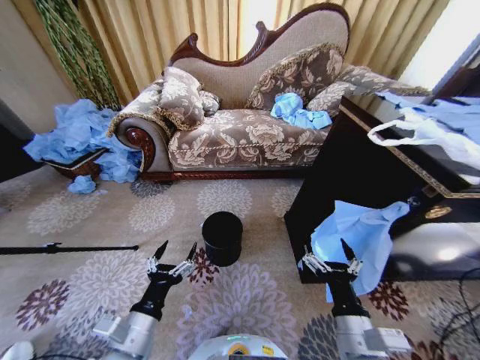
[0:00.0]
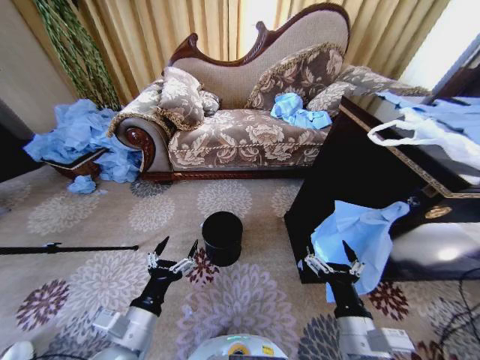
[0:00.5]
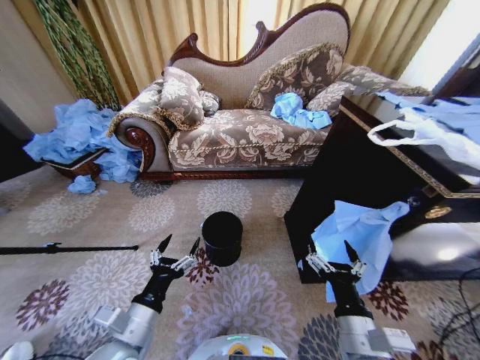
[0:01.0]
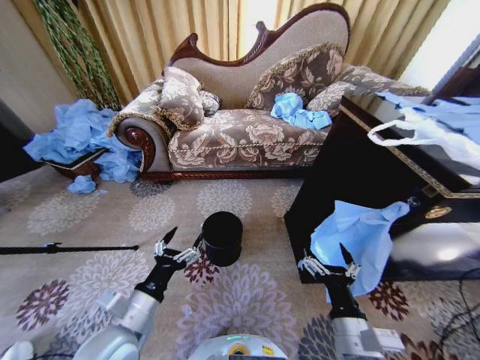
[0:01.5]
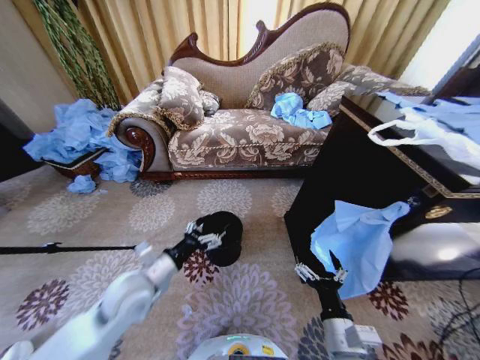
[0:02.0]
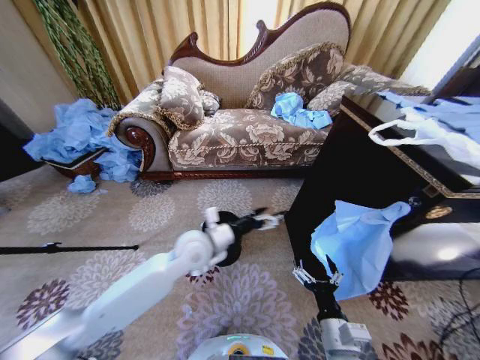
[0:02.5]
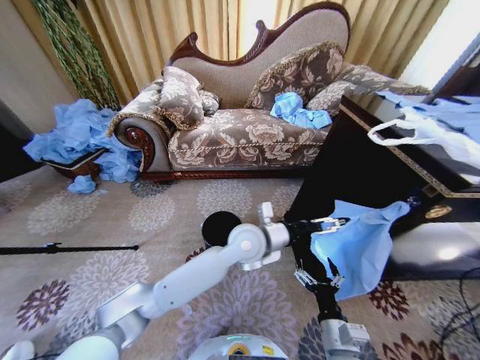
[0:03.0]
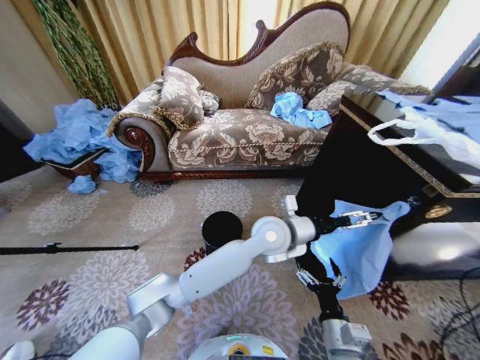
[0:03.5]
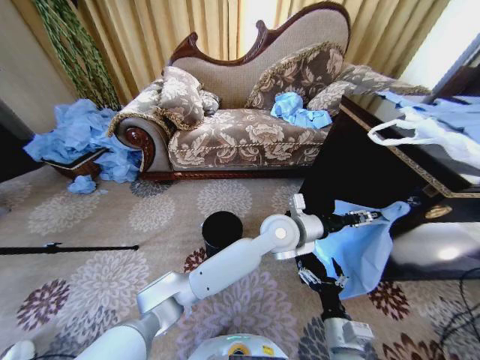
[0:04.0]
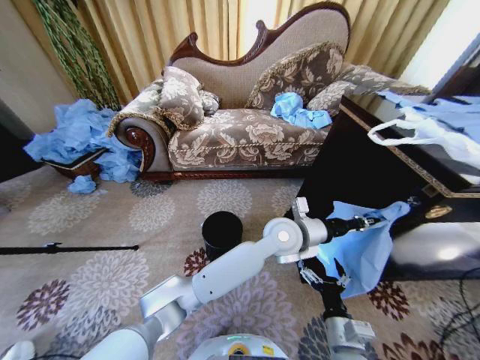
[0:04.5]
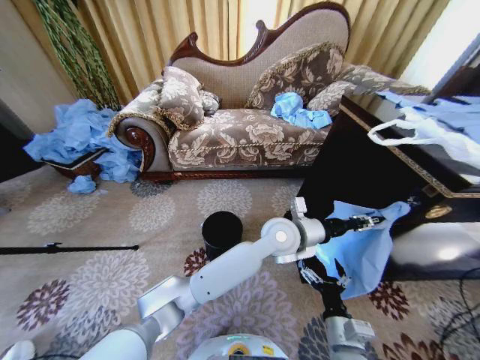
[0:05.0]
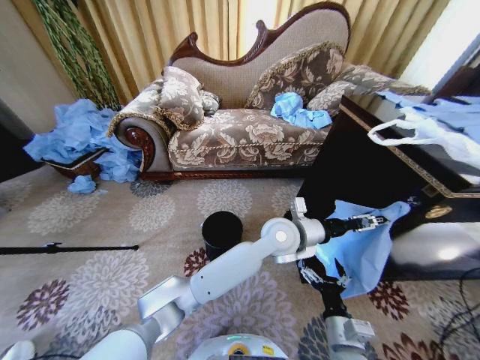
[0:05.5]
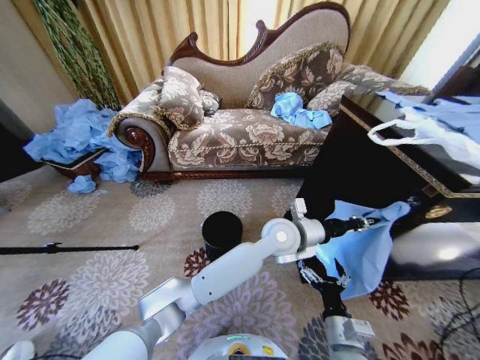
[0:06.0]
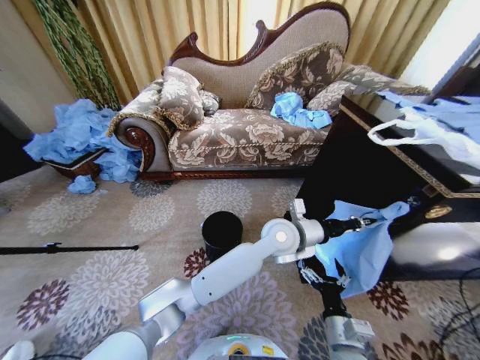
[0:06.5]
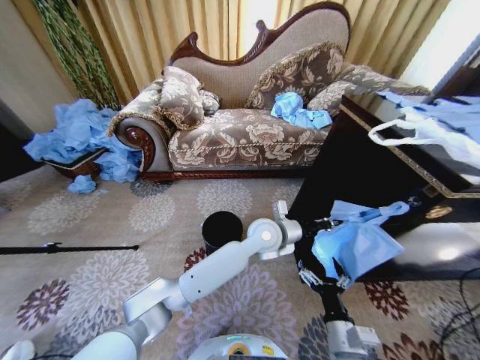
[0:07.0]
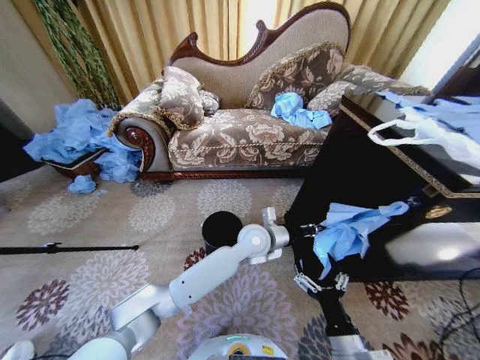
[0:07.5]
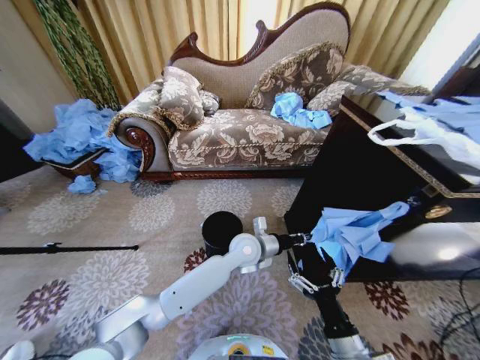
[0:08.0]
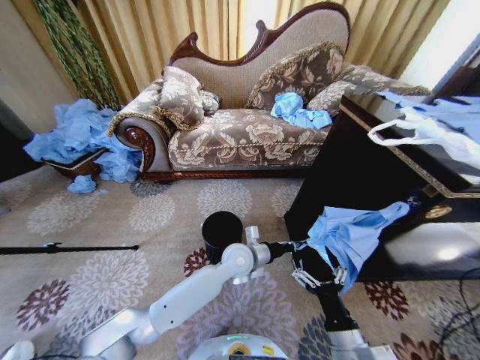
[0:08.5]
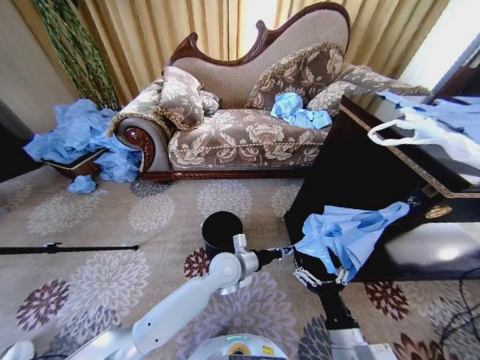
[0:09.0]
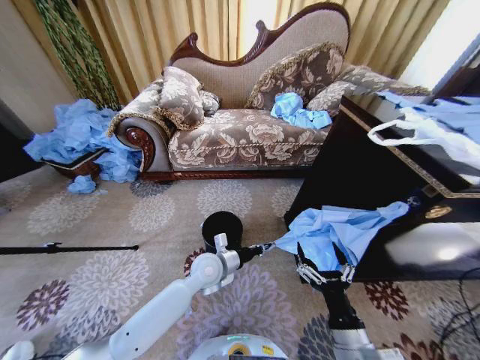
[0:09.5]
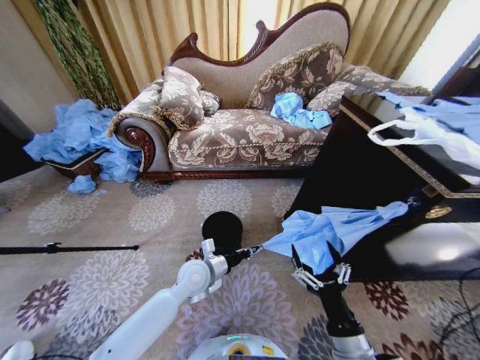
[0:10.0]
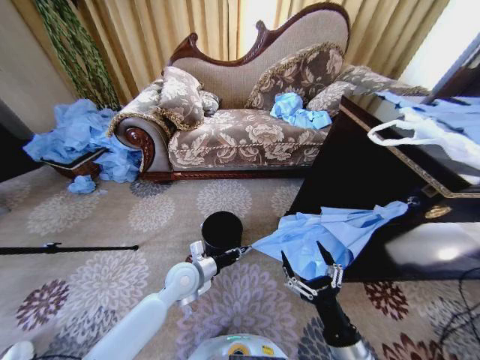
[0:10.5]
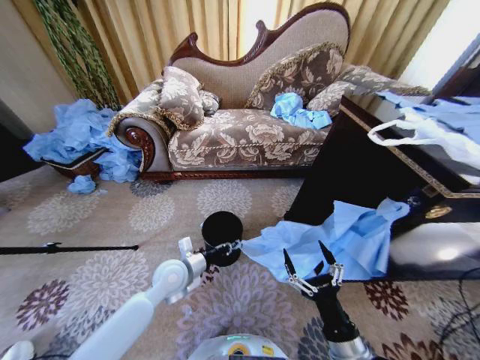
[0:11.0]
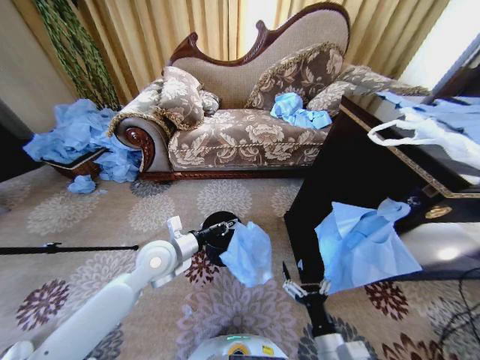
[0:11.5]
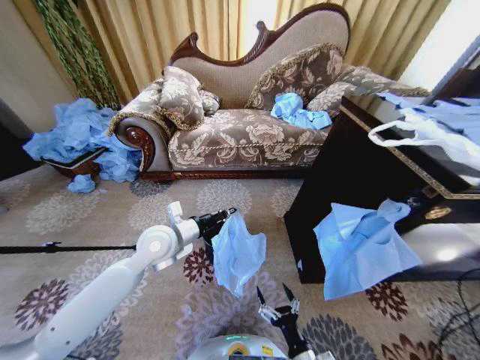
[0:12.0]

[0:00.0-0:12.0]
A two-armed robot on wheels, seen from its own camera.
Task of the whole recording: Place a garbage bag over the trash bin.
0:02.0 to 0:04.0: The left gripper moves to the right and forward, about 35 cm, and closes its fingers.
0:04.0 to 0:06.0: The left gripper closes up.
0:06.0 to 0:08.0: The left gripper heads downward and to the left, covering about 10 cm, while the right gripper changes place by roughly 5 cm.
0:08.0 to 0:10.0: The left gripper travels to the left and backward by roughly 15 cm.
0:10.0 to 0:12.0: The left gripper travels upward and to the left by some 15 cm, while the right gripper is displaced downward by roughly 10 cm.

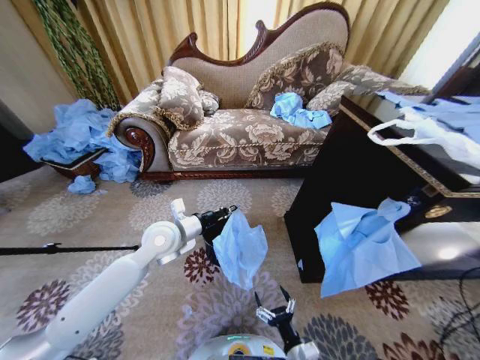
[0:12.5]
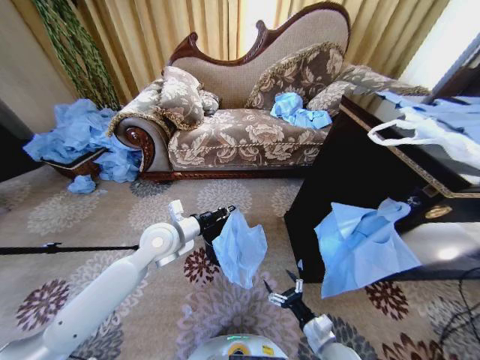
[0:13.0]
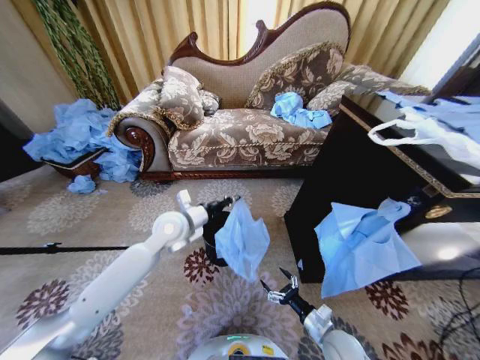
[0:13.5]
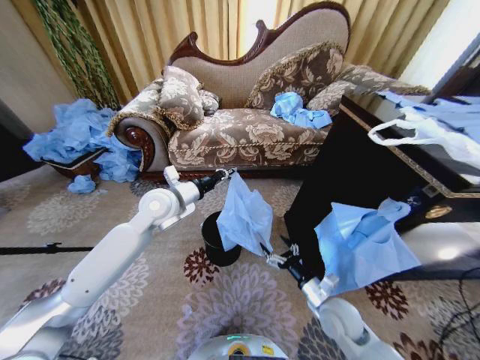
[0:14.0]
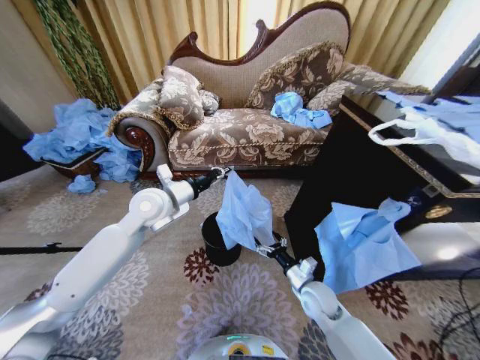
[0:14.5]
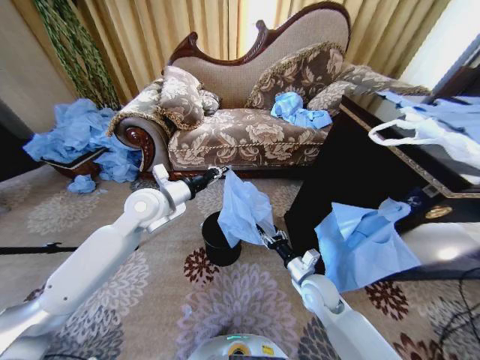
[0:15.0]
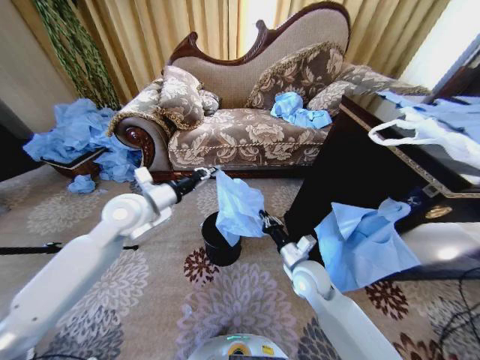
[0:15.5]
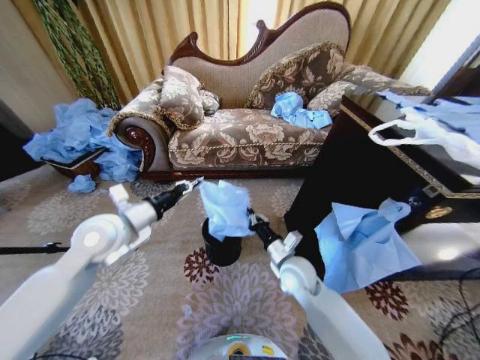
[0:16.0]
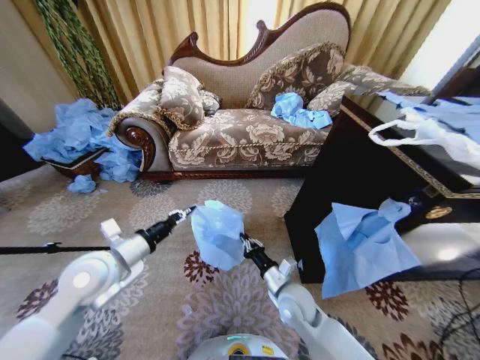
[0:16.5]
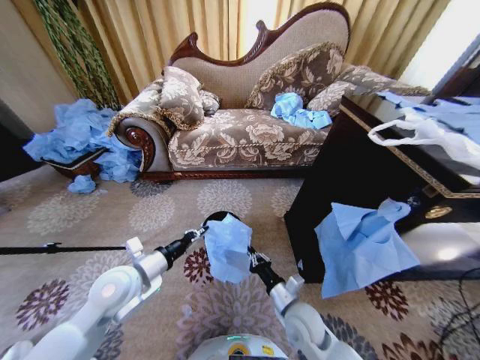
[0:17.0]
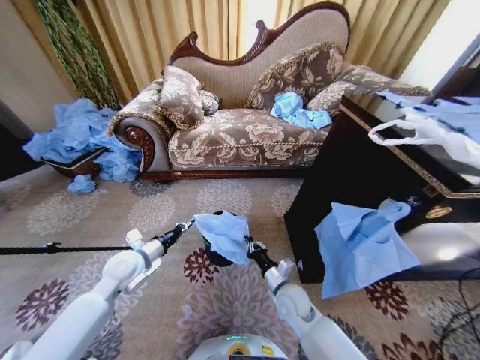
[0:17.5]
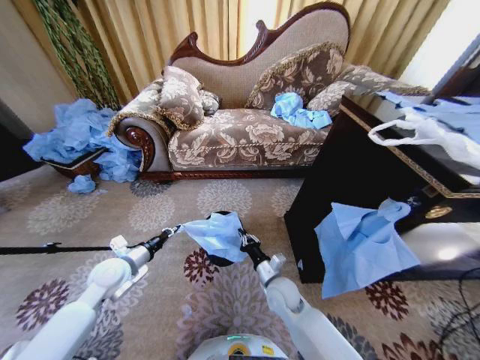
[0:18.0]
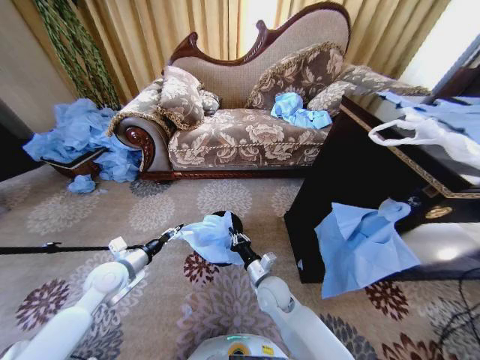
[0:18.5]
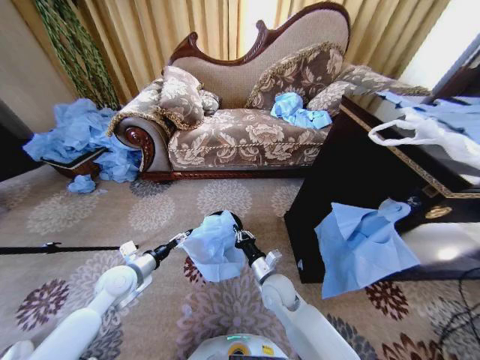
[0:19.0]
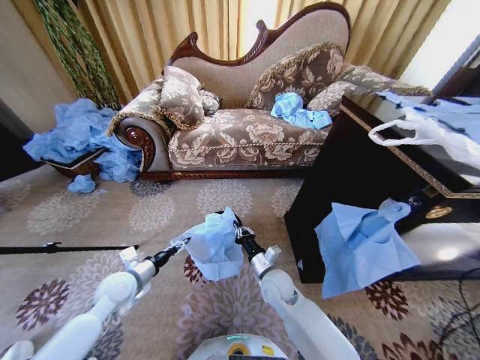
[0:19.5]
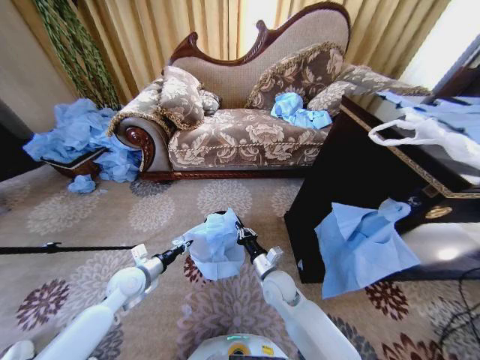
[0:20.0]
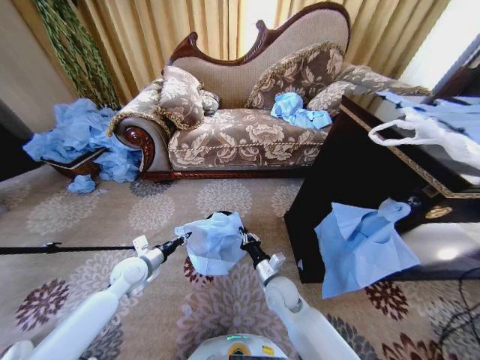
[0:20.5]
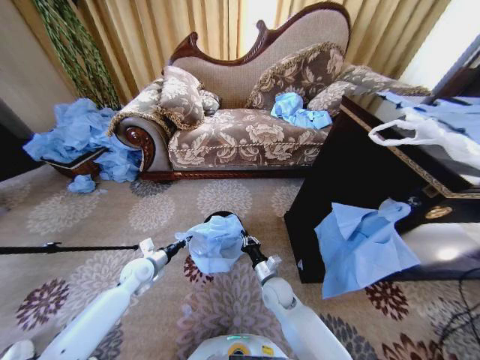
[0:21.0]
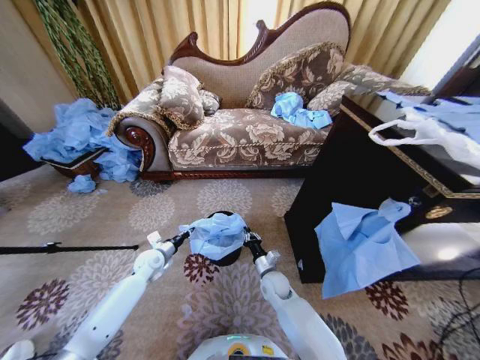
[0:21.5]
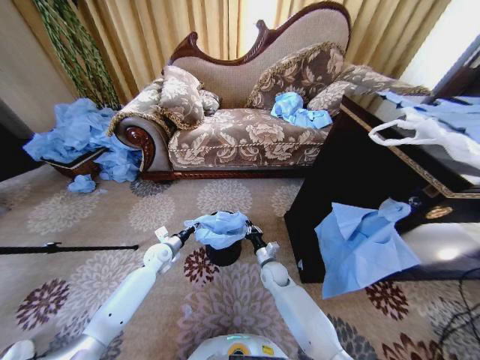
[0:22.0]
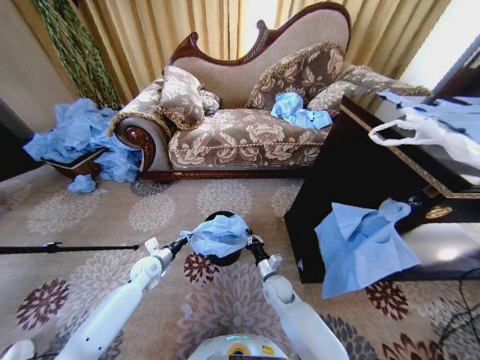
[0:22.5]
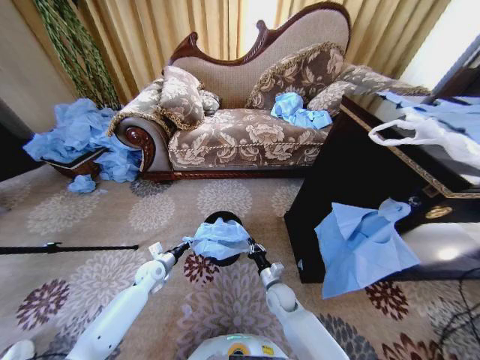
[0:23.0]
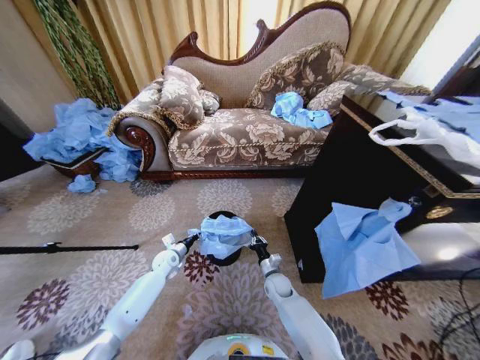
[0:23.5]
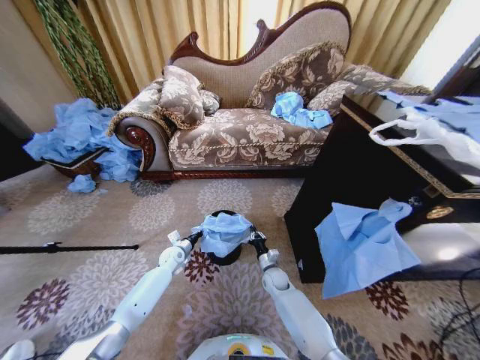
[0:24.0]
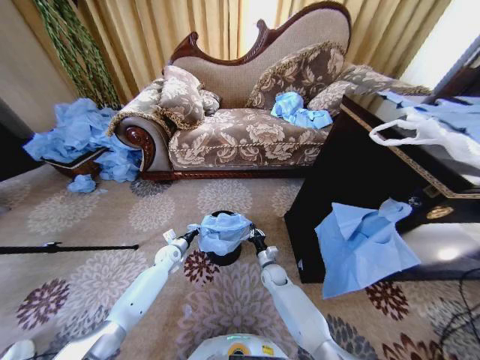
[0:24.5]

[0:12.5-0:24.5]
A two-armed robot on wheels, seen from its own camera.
Task of the whole recording: Place a garbage bag over the trash bin.
0:12.5 to 0:14.5: The right gripper moves forward, roughly 20 cm. The left gripper heads upward, covering approximately 10 cm.
0:14.5 to 0:16.5: The left gripper heads backward, to the left and downward, covering some 15 cm; the right gripper heads to the left, covering some 10 cm, and closes its fingers.
0:16.5 to 0:18.5: The right gripper is displaced to the left by approximately 5 cm. Meanwhile the left gripper shifts about 10 cm downward and to the left, and opens.
0:18.5 to 0:20.5: The left gripper goes about 5 cm downward, and closes.
0:20.5 to 0:22.5: Both grippers move downward, roughly 5 cm.
0:22.5 to 0:24.5: The left gripper moves forward, roughly 10 cm. Meanwhile the right gripper goes roughly 10 cm forward and downward.

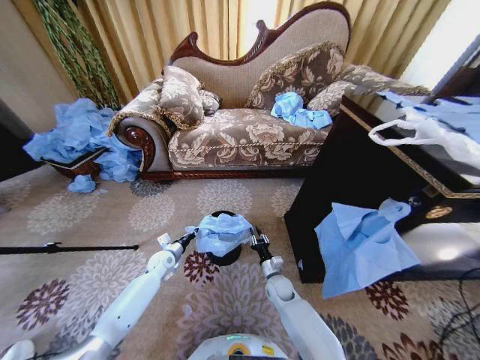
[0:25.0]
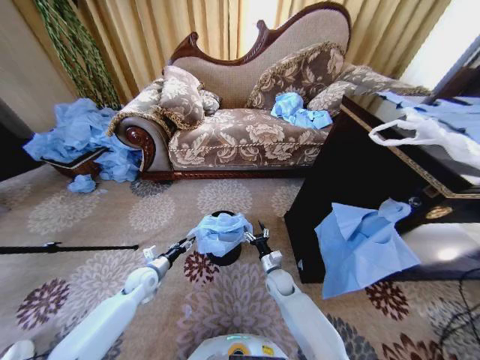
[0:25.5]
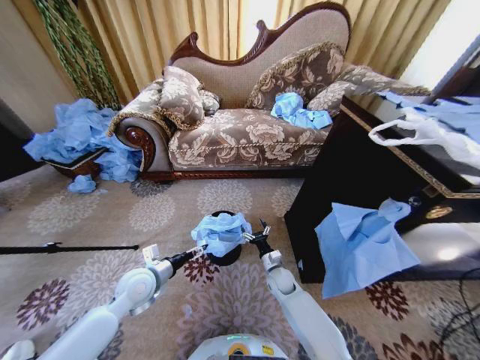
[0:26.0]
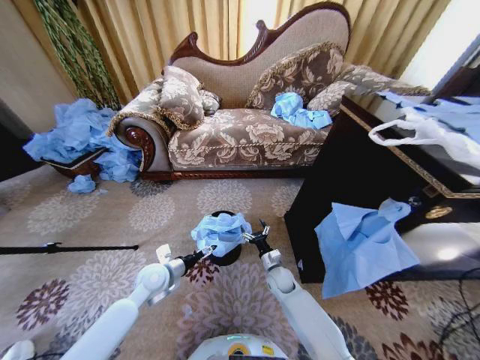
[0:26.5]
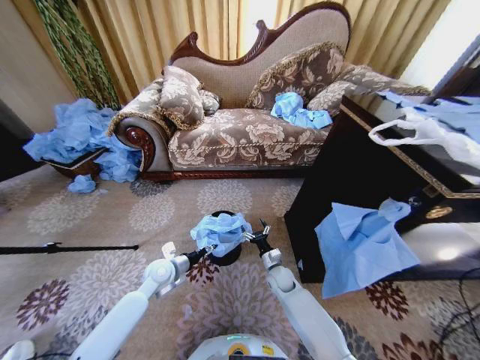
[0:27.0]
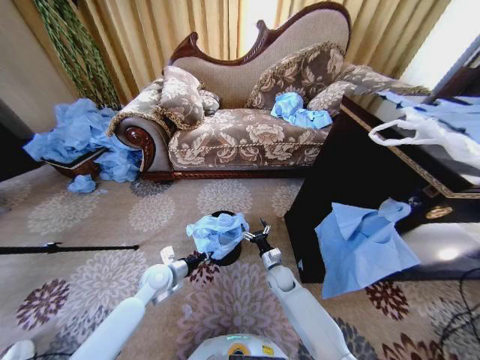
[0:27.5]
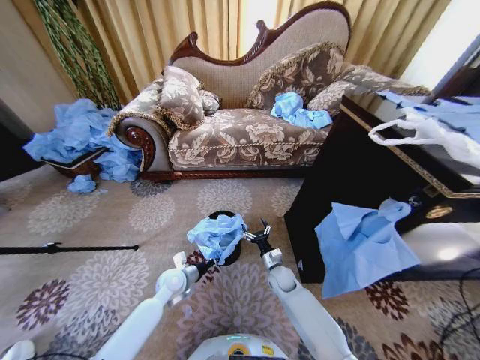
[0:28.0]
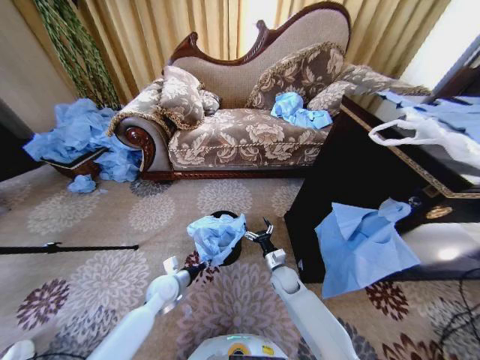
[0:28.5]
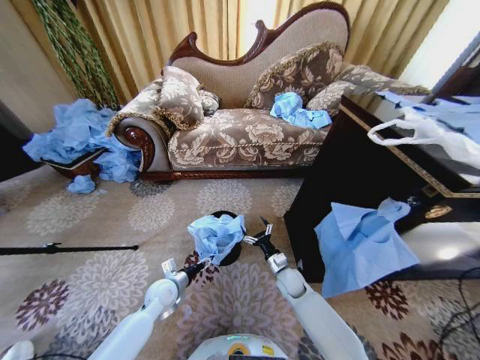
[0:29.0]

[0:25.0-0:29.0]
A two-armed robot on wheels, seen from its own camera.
Task of the whole recording: Place a garbage bag over the trash bin.
0:25.0 to 0:27.0: The left gripper heads upward, backward and to the right, covering approximately 10 cm, and opens its fingers, while the right gripper opens up.
0:27.0 to 0:29.0: The left gripper shifts some 5 cm downward, and closes, then opens again.
